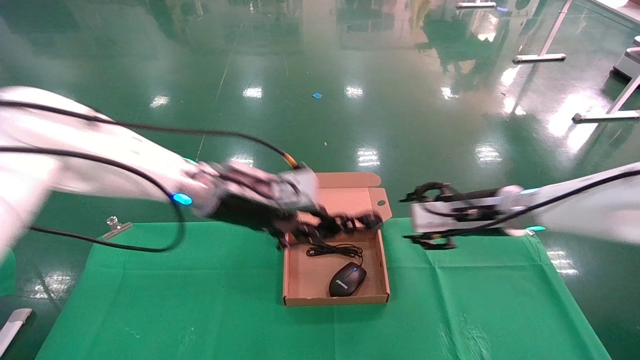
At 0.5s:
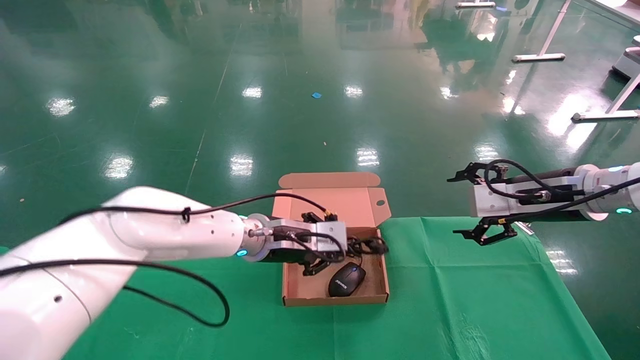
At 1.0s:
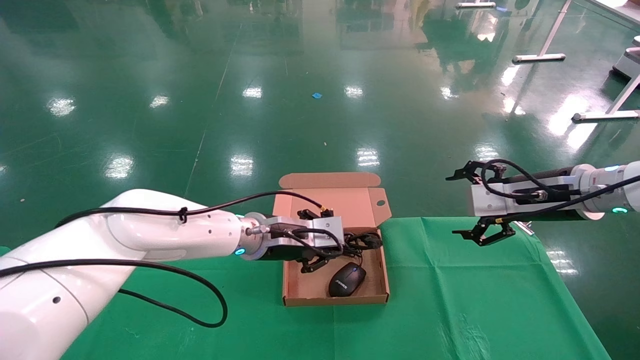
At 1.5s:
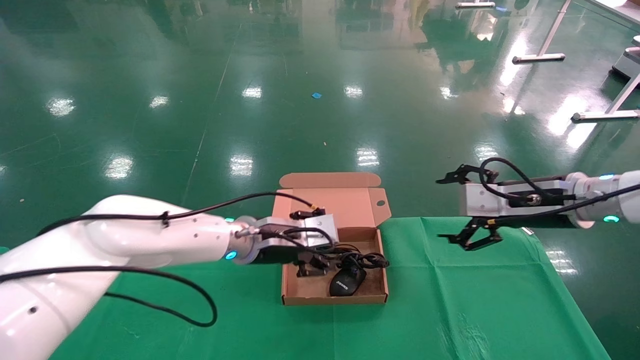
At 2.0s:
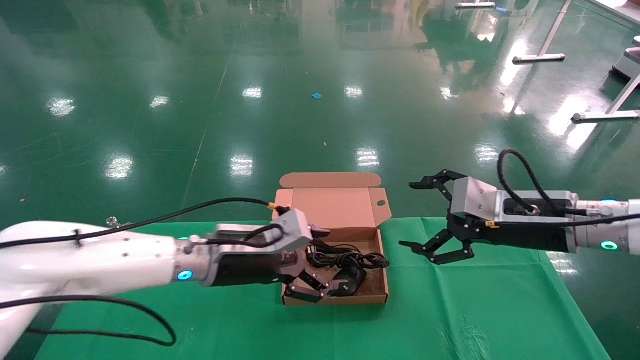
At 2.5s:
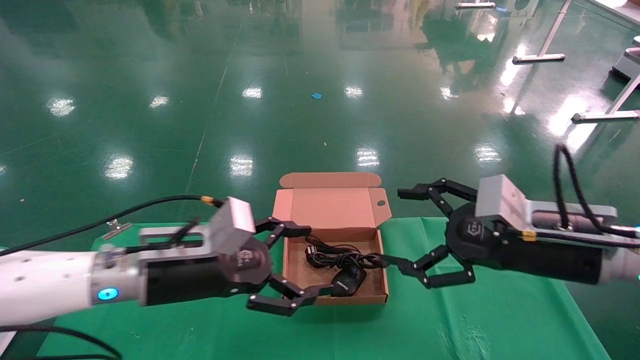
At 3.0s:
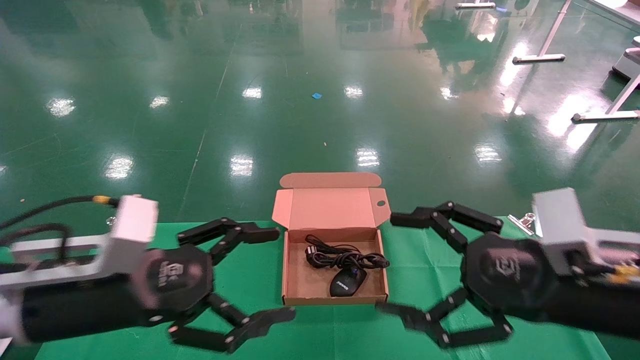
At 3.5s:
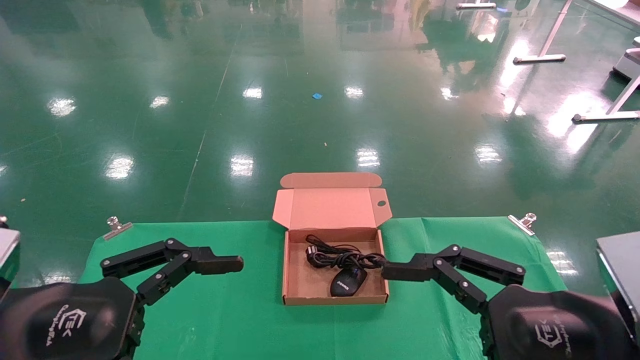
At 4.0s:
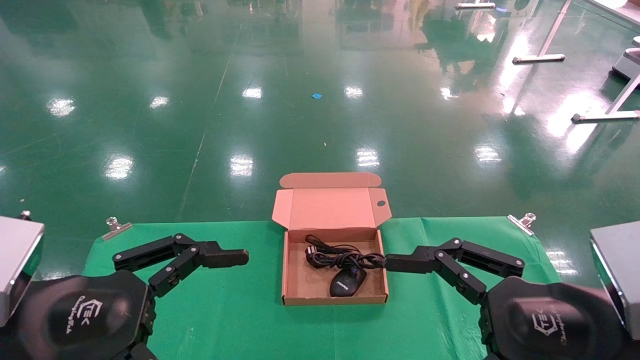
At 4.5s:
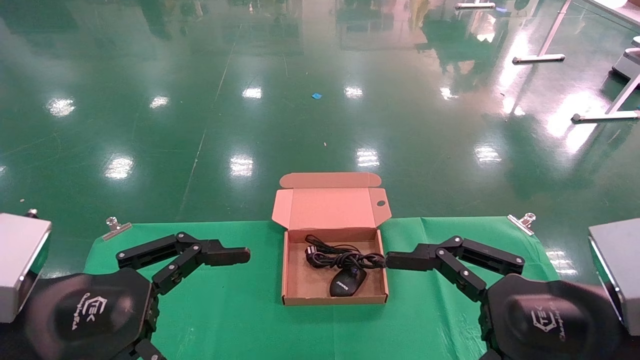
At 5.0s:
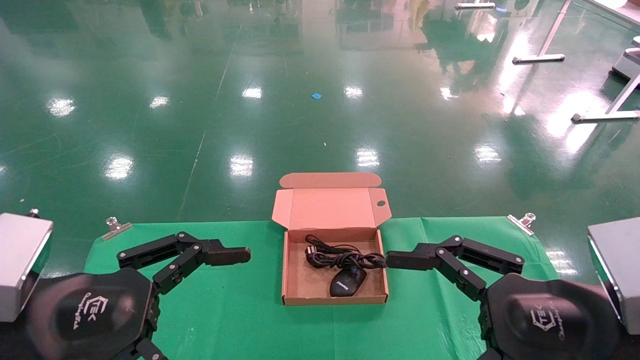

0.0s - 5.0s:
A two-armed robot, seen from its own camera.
0.0s - 2.5s: The right gripper moves backward, about 15 cm, and opens its fingers. The left gripper shifts approximately 10 cm backward, downward and to the left, and opens its fingers.
2.5s - 5.0s: The left gripper moves backward and to the left, some 15 cm. Meanwhile the right gripper heads backward, covering about 15 cm.

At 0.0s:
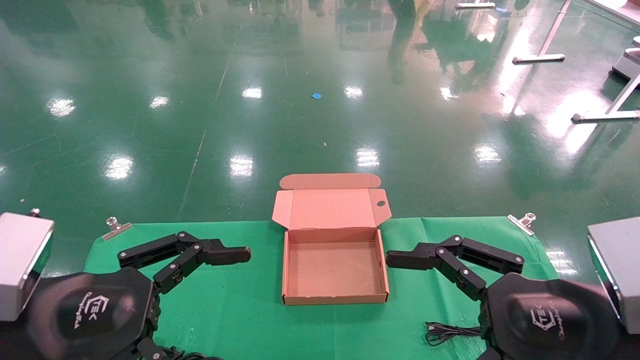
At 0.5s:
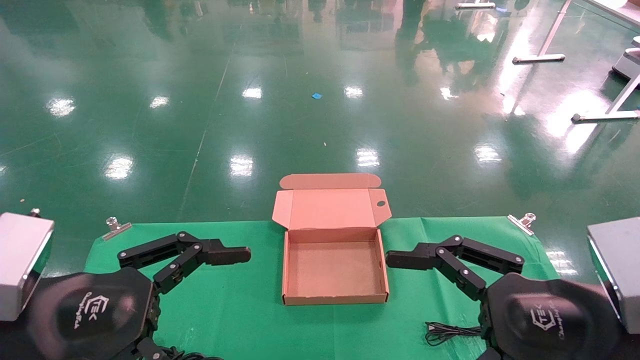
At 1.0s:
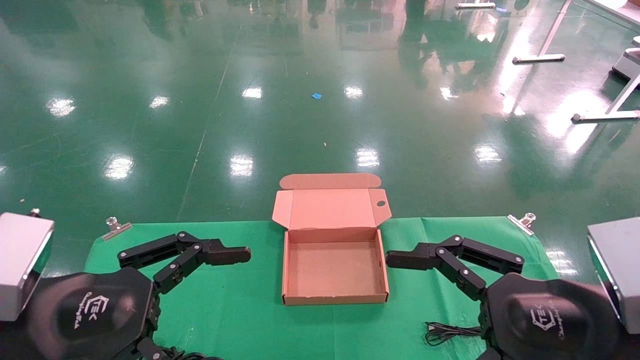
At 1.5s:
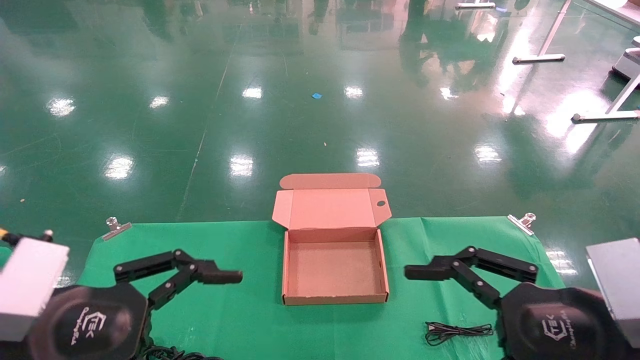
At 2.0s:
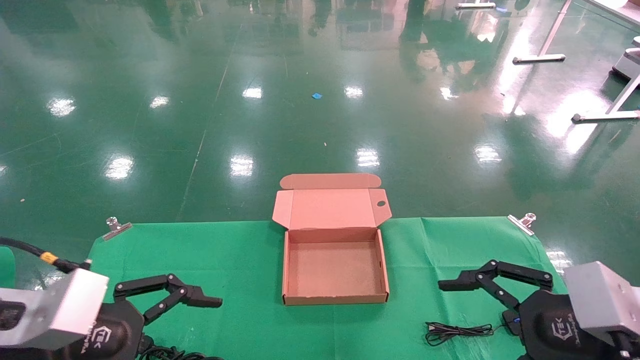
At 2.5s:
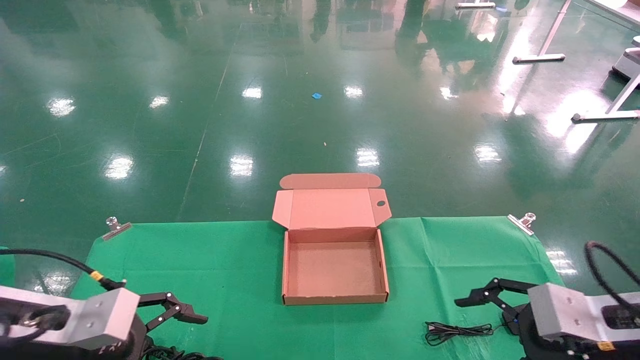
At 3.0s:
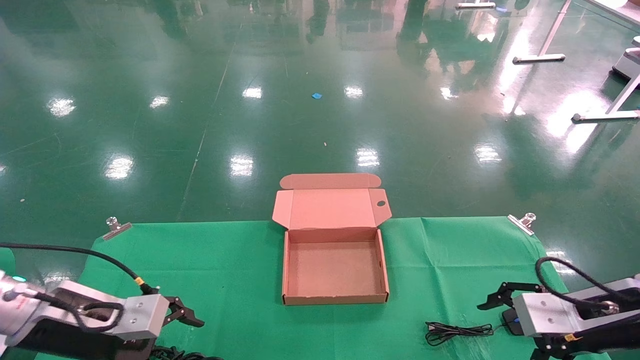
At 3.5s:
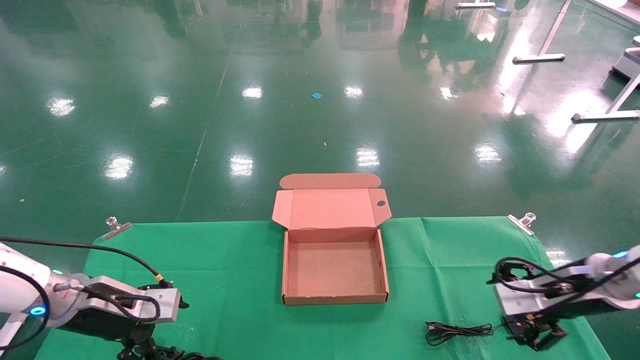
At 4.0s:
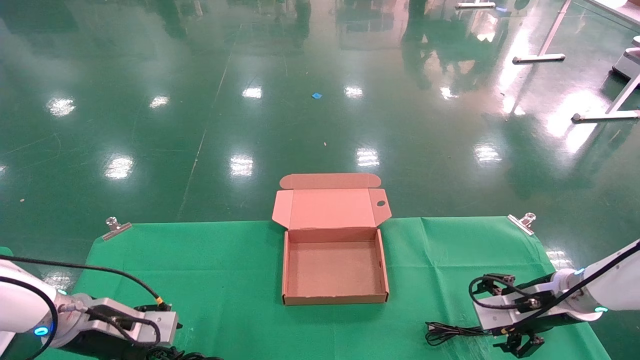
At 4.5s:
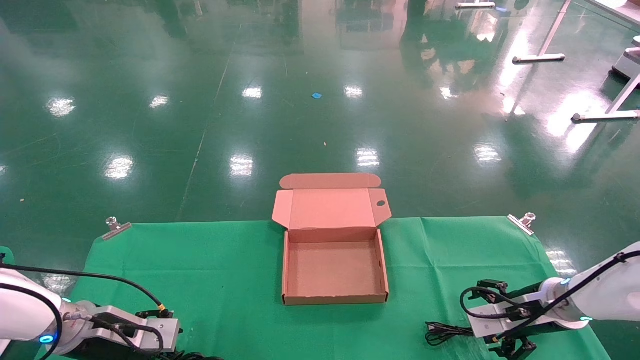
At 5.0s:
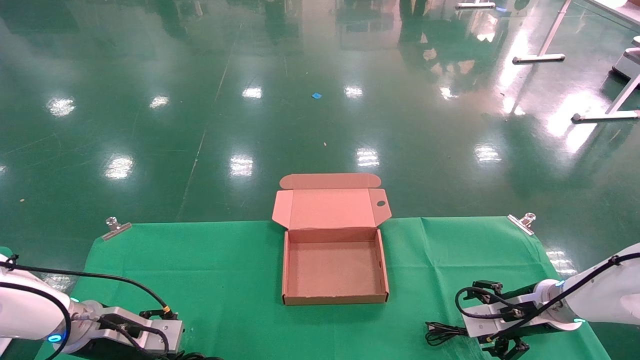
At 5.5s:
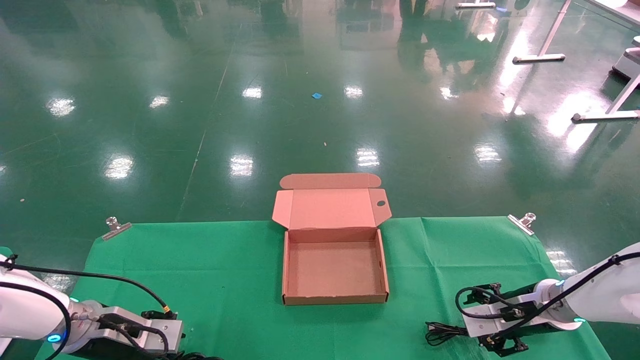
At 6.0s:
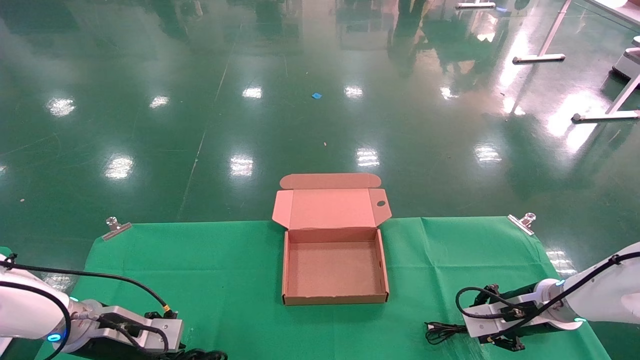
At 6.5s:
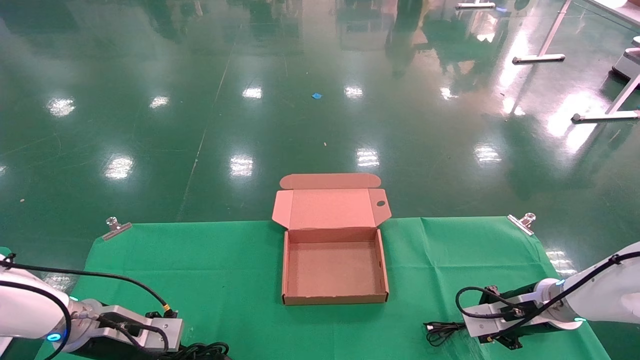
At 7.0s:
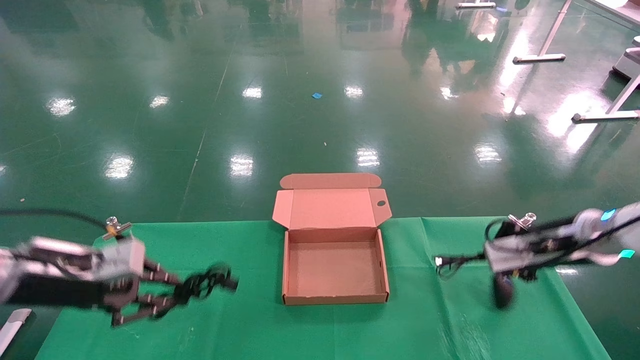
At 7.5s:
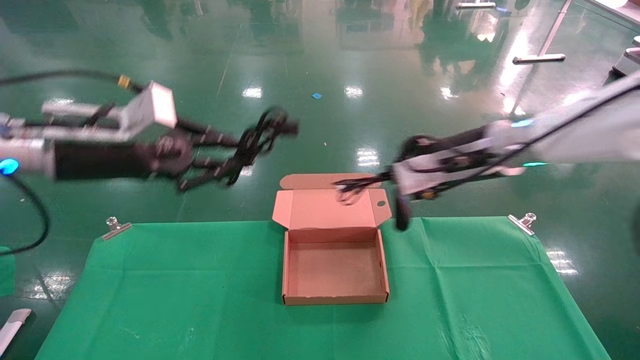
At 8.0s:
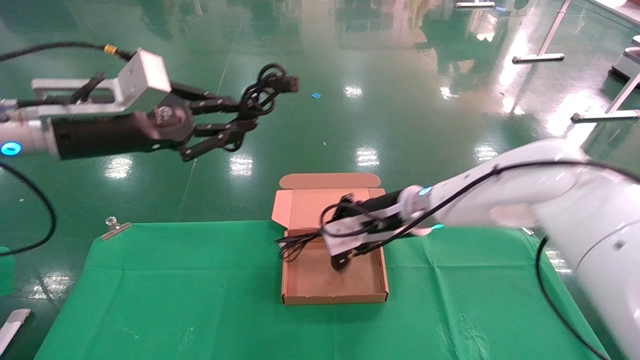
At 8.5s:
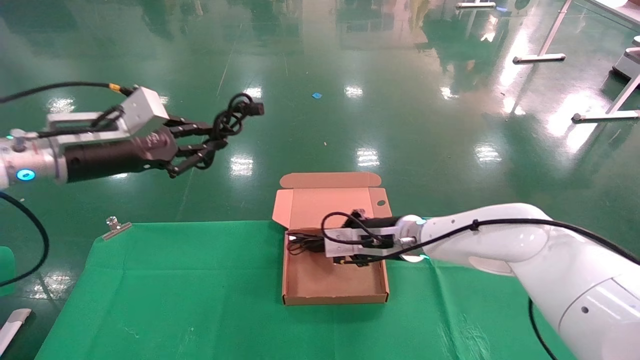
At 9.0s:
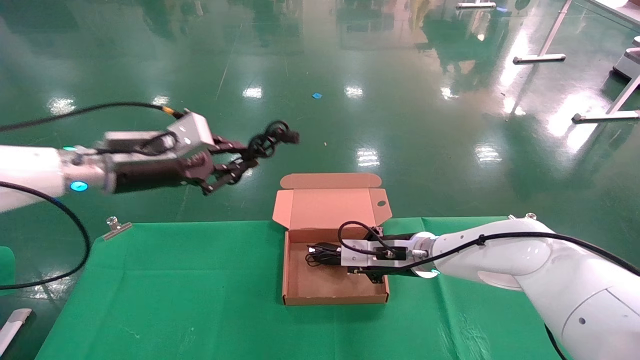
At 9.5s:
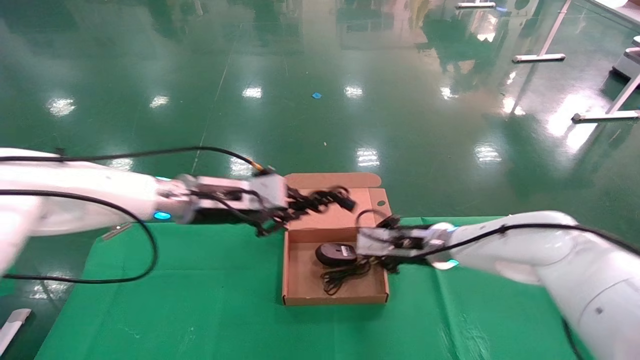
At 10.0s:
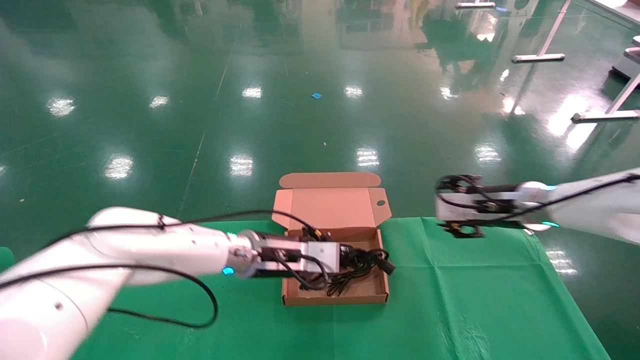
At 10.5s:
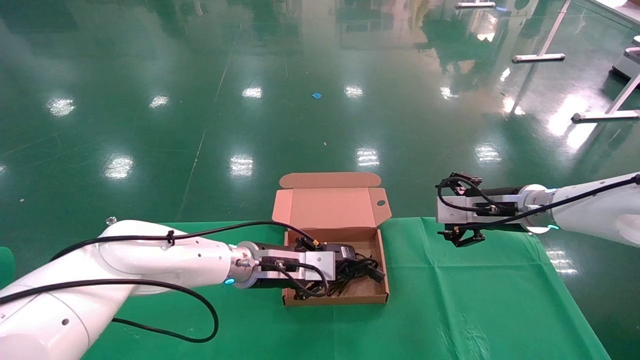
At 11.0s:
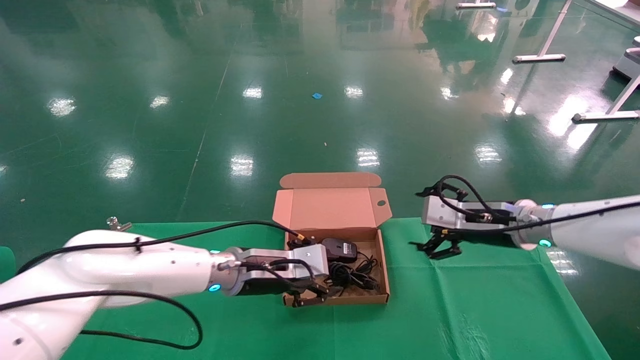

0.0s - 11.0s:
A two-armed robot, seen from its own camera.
Step, 1.5s - 6.0s: Grab and lift both the mouse and power cord from the accessory packaging area at the same time.
Step, 6.5s - 10.0s: Place the mouse and power cord into the box.
0.0s - 2.0s: The right gripper travels to the right by about 5 cm.
2.0s - 3.5s: The left gripper moves forward and downward, some 20 cm; the right gripper goes roughly 20 cm forward.
3.5s - 5.5s: The right gripper heads downward, covering roughly 5 cm; the left gripper shifts by about 5 cm.
5.5s - 7.5s: The right gripper goes about 25 cm upward and to the left, and closes its fingers; the left gripper moves upward, roughly 25 cm, and closes up.
7.5s - 9.0s: The right gripper heads downward and to the left, covering about 20 cm, while the left gripper goes about 5 cm forward.
9.0s - 11.0s: The left gripper shifts some 20 cm downward and to the right, while the right gripper travels to the right and upward by some 15 cm, and opens.

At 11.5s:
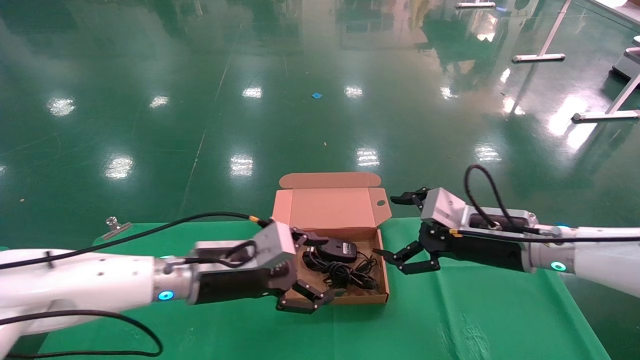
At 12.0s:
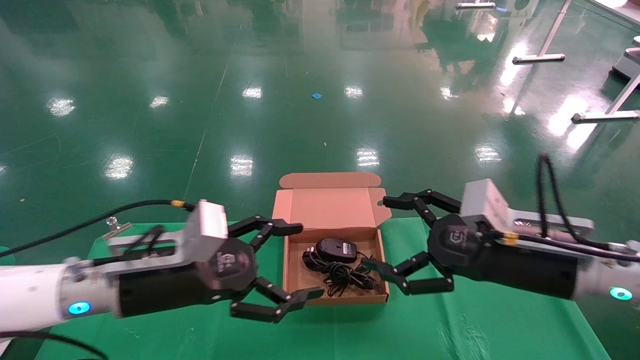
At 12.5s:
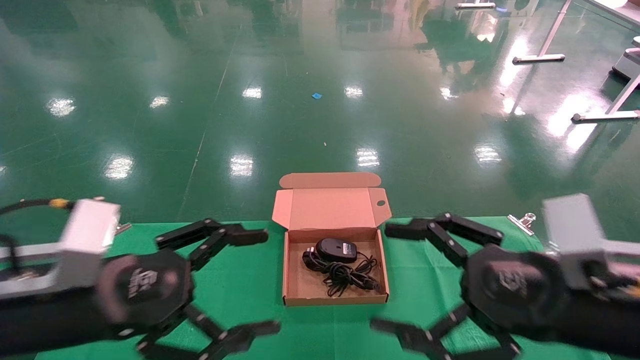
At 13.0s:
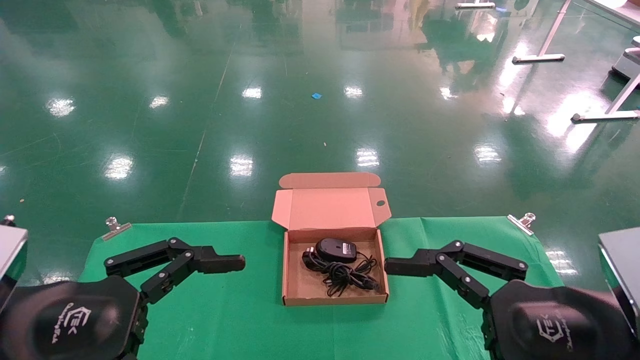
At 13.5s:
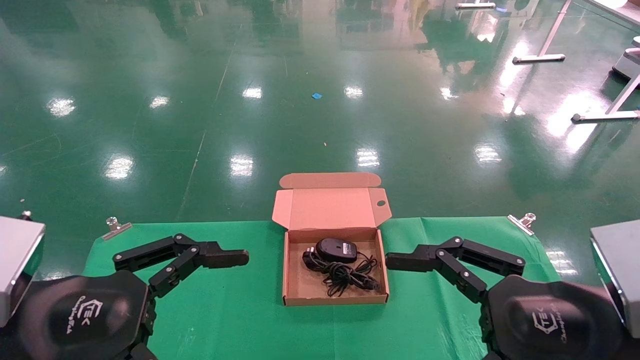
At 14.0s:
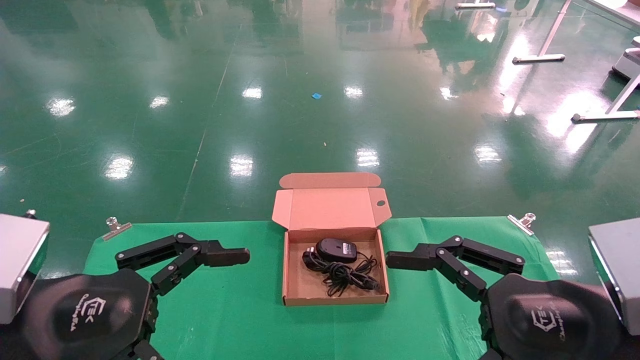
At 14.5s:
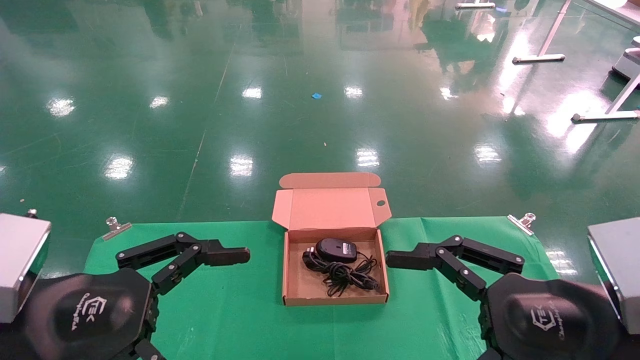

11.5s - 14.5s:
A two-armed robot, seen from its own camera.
11.5s - 13.0s: The right gripper travels backward by about 20 cm. Meanwhile the left gripper is displaced backward and to the left by roughly 25 cm.
13.0s - 14.5s: Both grippers stay put.
